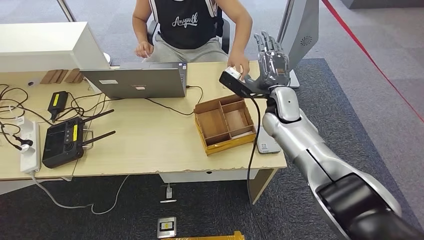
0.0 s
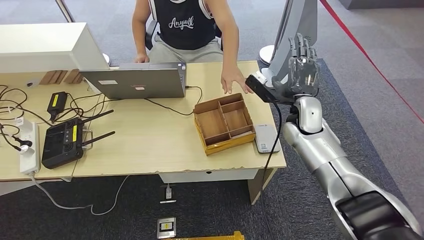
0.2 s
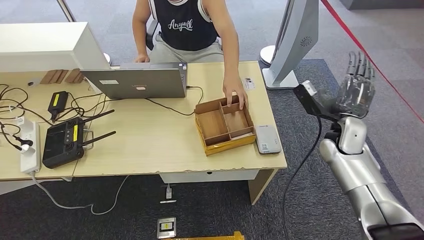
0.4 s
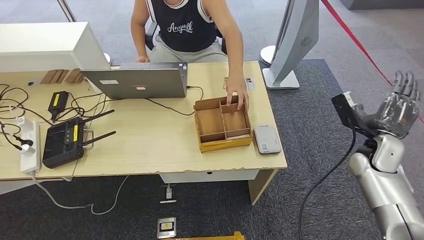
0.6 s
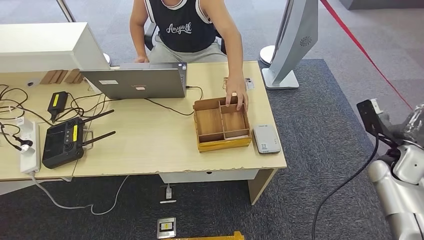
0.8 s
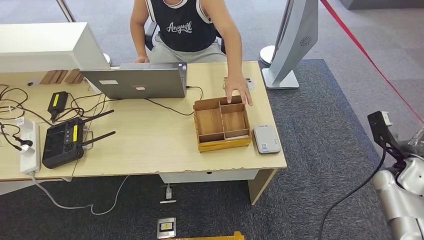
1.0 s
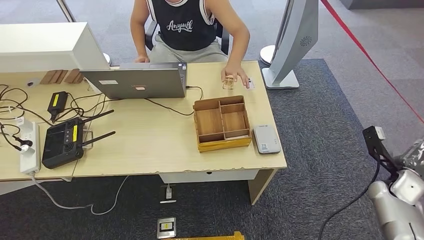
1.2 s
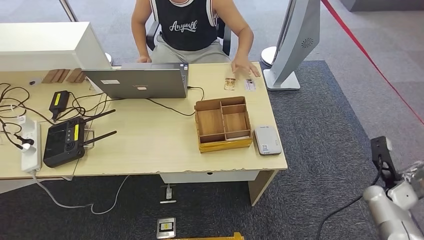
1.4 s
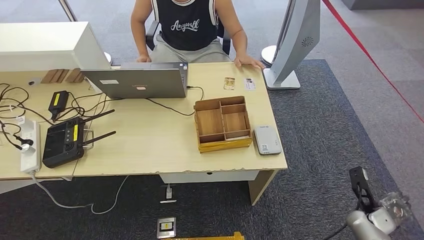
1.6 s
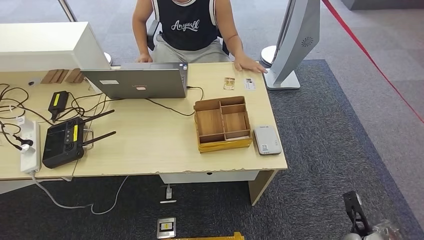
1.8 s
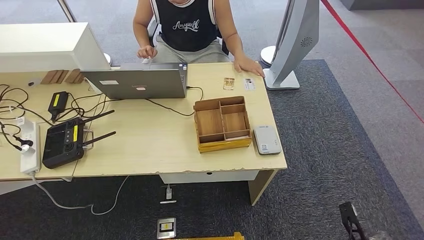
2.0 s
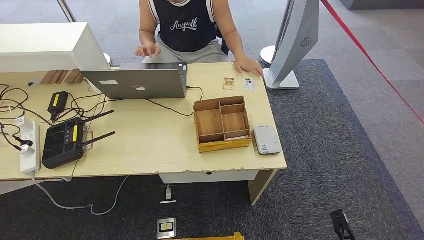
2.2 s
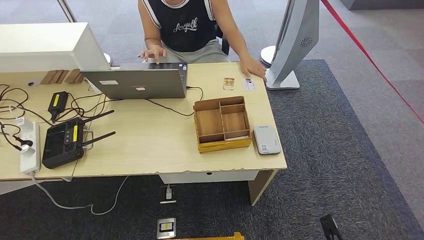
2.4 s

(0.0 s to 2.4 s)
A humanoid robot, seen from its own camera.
Step, 0.0 s - 2.4 s: Hand the room key to the person.
0.0 s - 1.2 s: The right hand travels to the right, backward and downward by about 40 cm.
1.2 s - 2.4 s: The right hand shifts about 30 cm downward, backward and to the left.

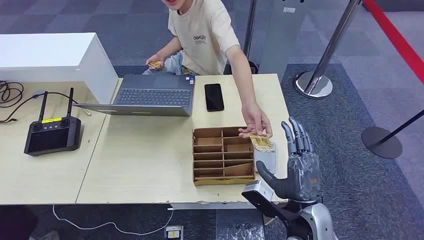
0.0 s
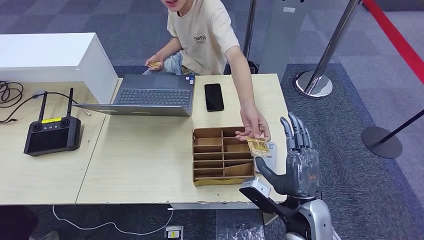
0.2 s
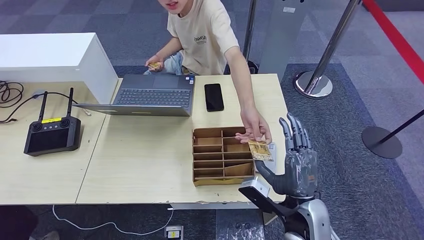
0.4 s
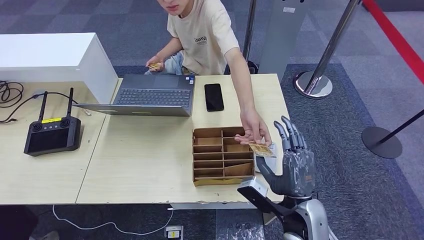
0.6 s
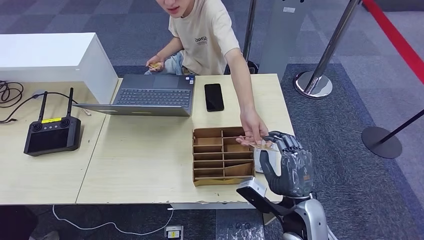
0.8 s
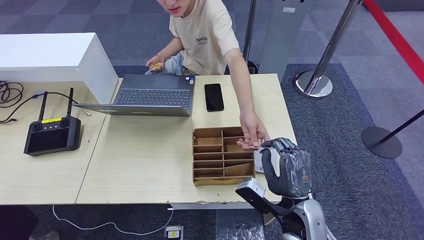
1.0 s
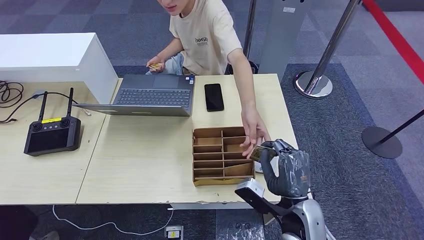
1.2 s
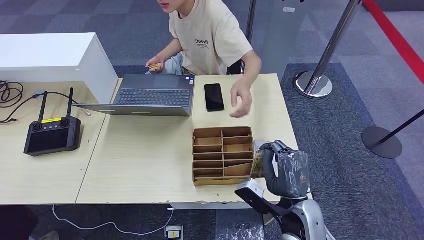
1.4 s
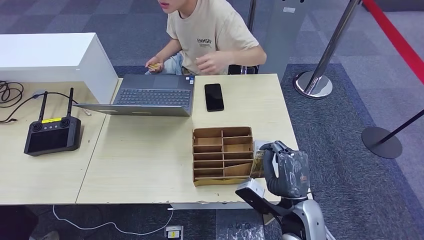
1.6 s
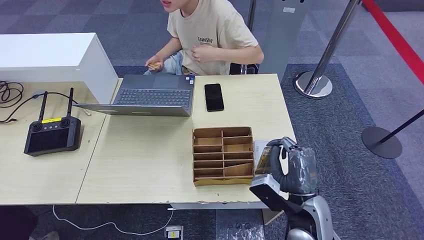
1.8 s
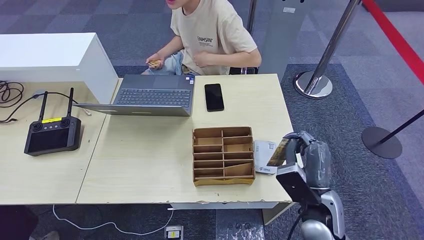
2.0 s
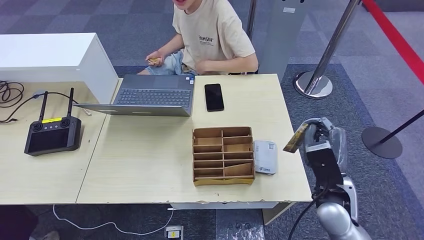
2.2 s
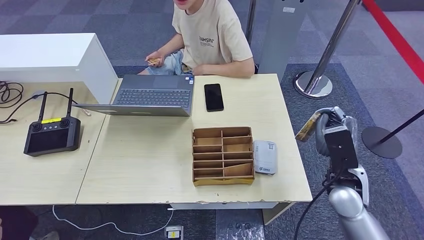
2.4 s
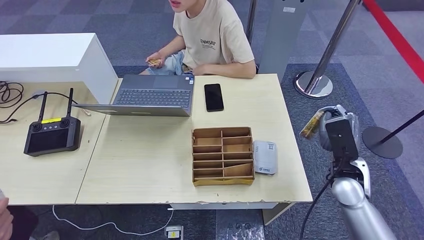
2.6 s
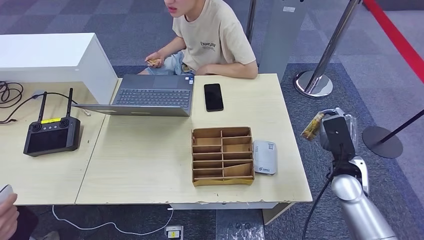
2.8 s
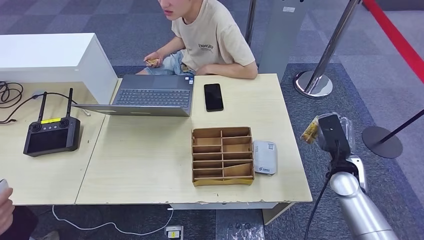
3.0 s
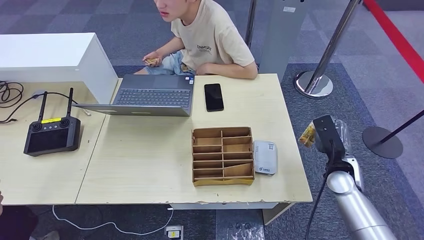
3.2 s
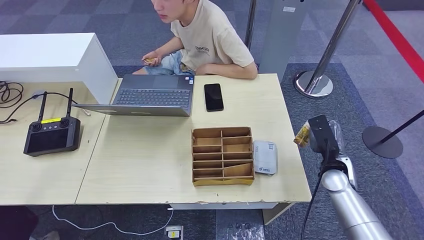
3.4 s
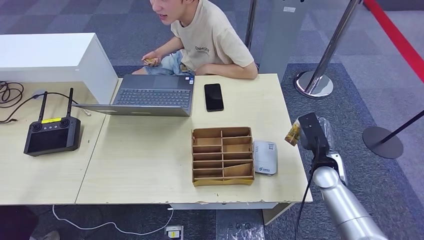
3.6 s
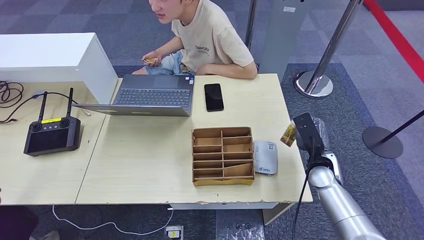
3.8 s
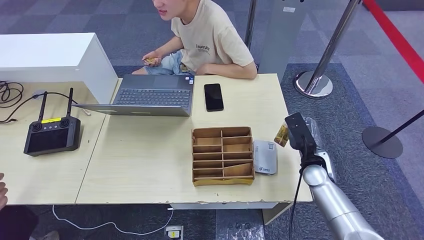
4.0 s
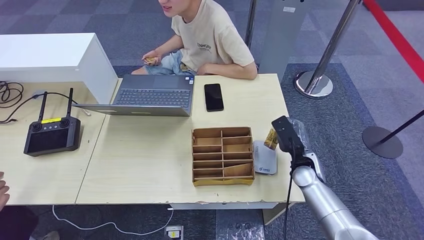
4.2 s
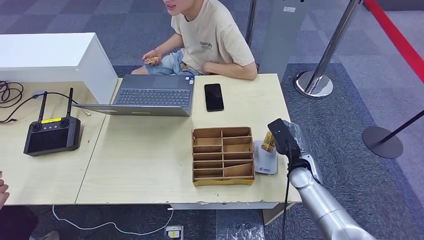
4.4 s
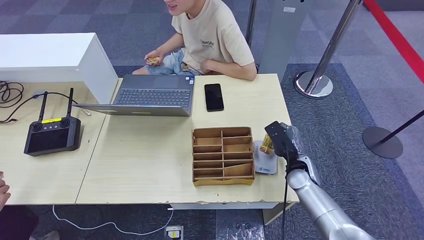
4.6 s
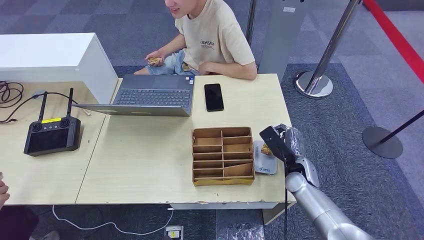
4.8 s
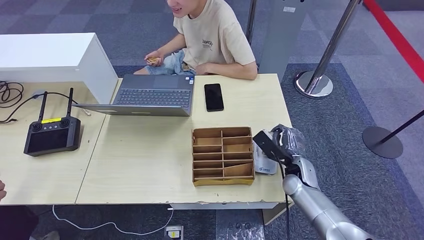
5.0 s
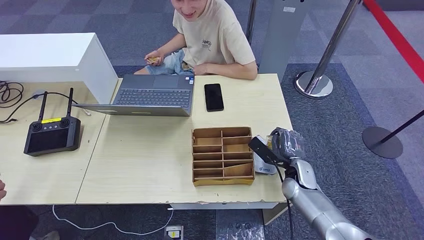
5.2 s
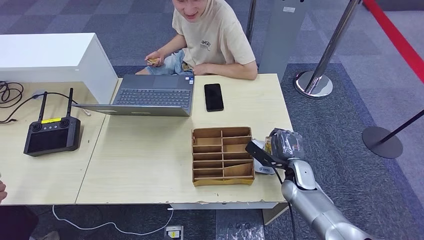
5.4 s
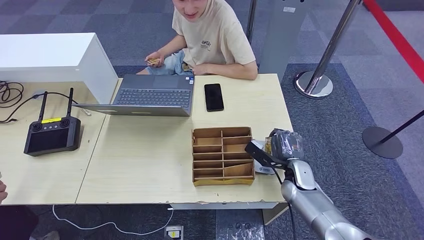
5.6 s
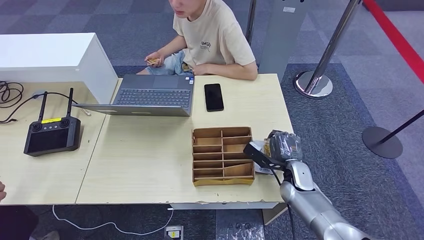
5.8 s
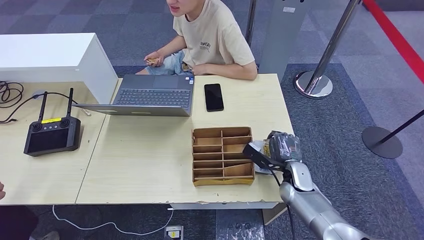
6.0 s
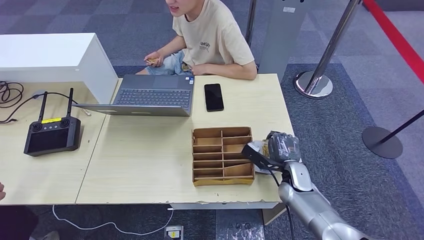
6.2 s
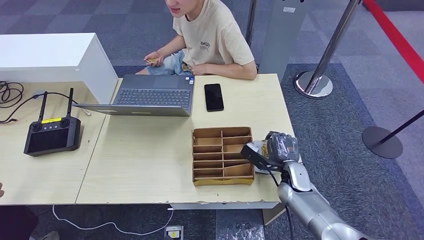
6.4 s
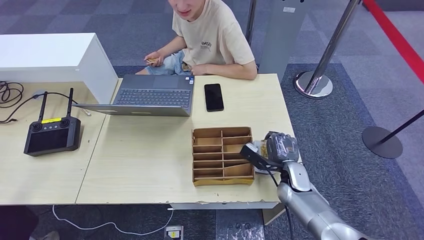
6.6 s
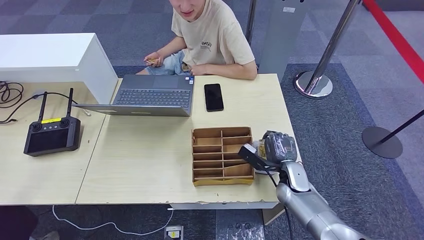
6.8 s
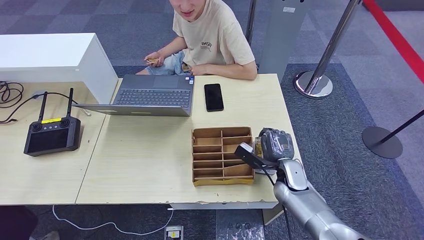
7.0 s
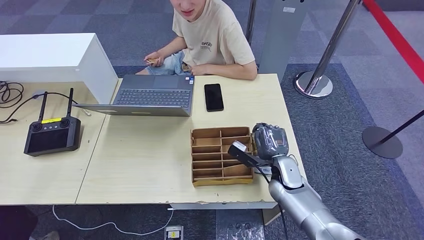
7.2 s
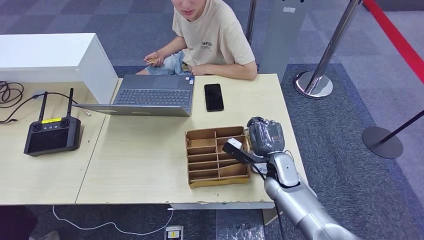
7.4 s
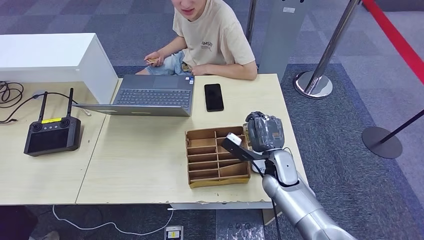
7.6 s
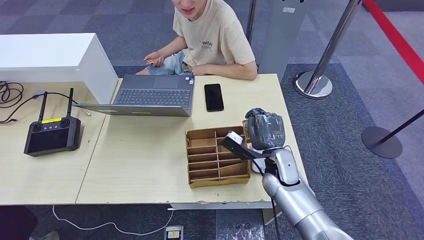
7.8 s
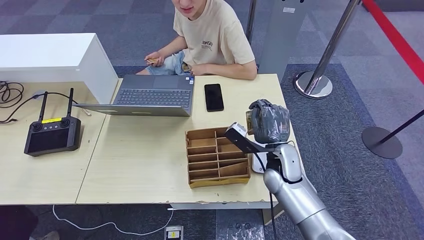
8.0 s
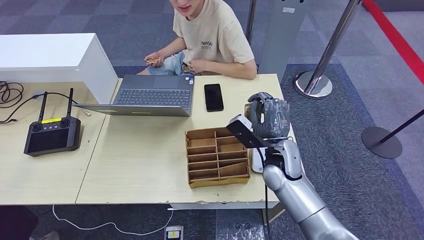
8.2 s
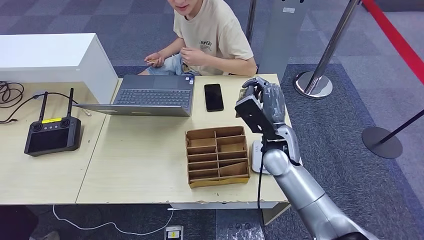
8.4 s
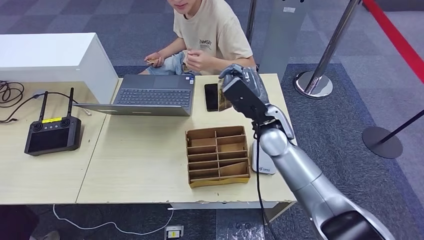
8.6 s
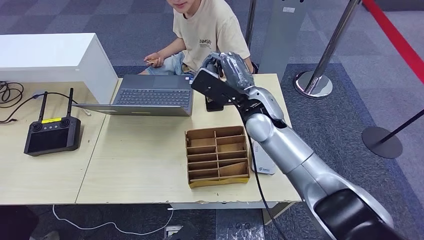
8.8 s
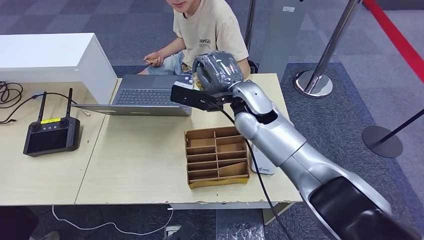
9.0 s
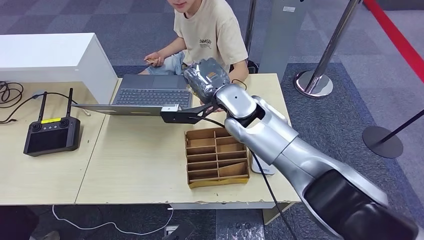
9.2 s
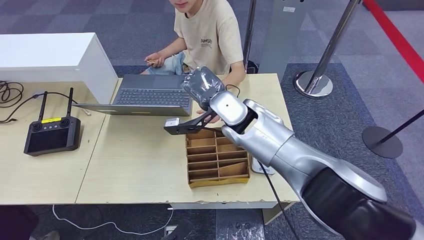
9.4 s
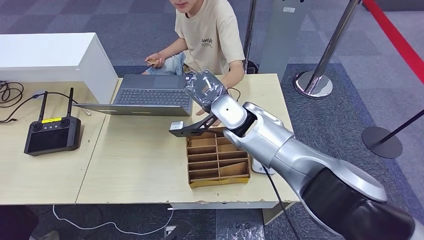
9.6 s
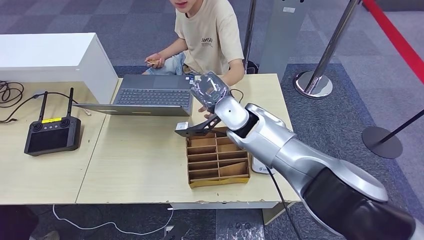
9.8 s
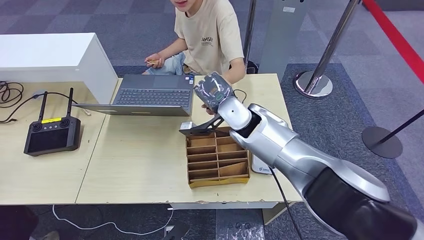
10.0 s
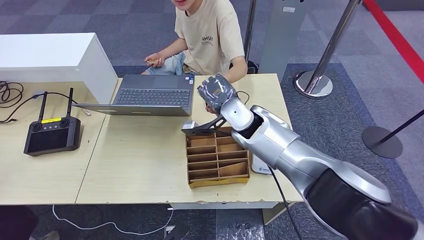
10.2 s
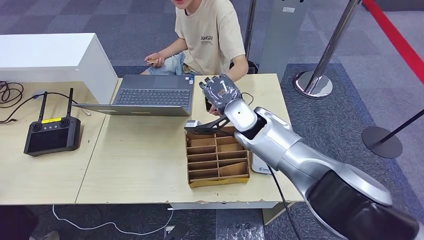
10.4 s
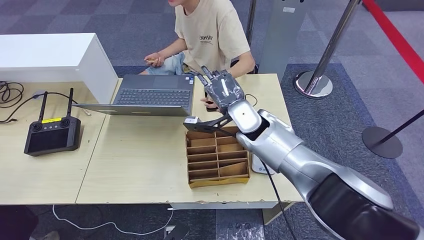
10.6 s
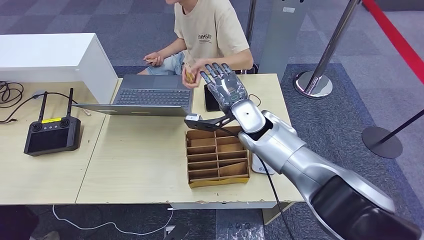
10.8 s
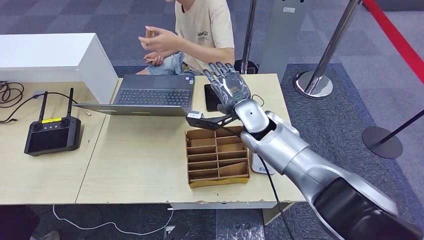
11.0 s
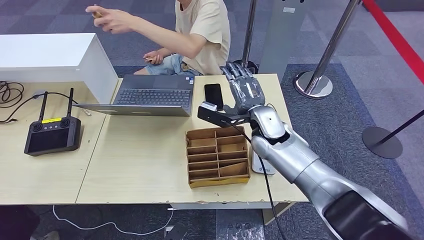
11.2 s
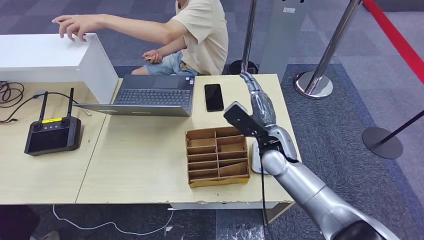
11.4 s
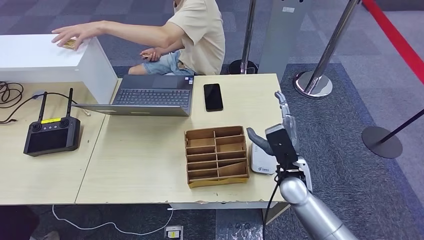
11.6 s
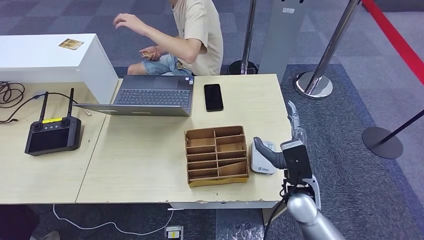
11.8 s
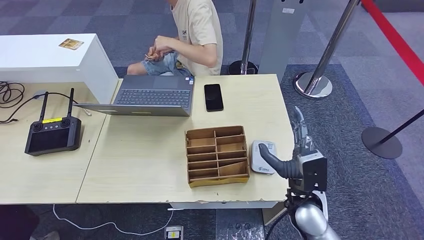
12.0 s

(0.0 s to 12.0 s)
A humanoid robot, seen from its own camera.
Step, 0.0 s - 2.2 s: Take the ID card from the person's hand.
Step, 2.4 s - 5.8 s: Place the ID card on the card reader.
Step, 6.0 s - 11.2 s: Hand the ID card to the person.
1.6 s - 3.0 s: The right hand is displaced to the right and forward by approximately 20 cm.
3.0 s - 4.4 s: The right hand heads to the left, covering roughly 10 cm.
6.0 s - 7.6 s: The right hand heads to the left and upward, covering some 10 cm.
7.6 s - 9.0 s: The left hand moves to the right, about 5 cm; the right hand shifts roughly 20 cm upward and to the left.
9.0 s - 10.4 s: The right hand shifts approximately 5 cm downward.
10.4 s - 12.0 s: The right hand heads backward, to the right and downward, covering roughly 25 cm. Meanwhile the left hand goes some 5 cm backward and to the left.

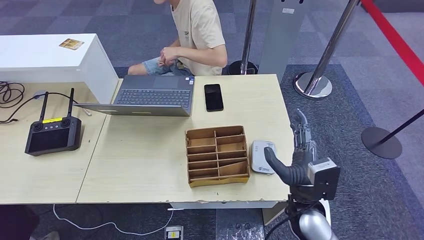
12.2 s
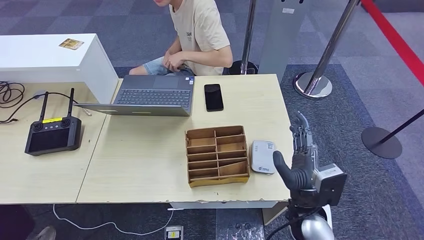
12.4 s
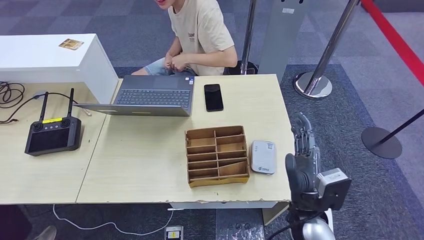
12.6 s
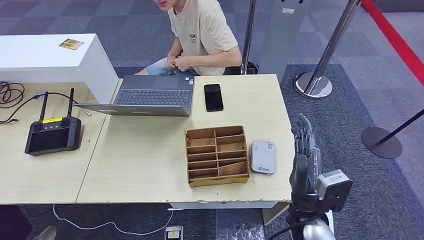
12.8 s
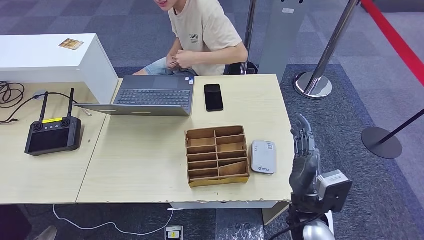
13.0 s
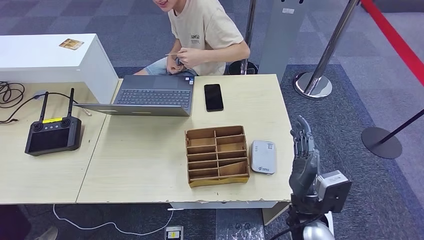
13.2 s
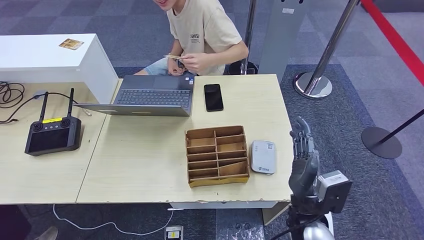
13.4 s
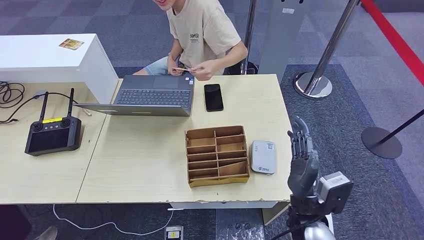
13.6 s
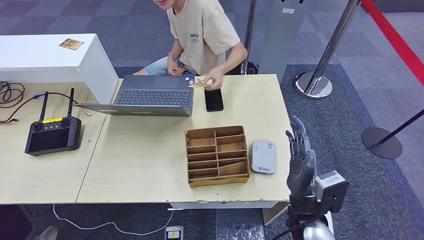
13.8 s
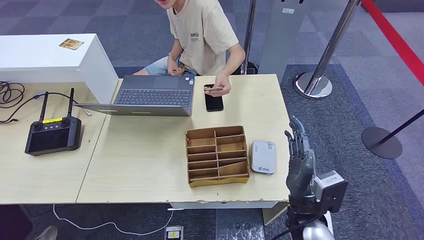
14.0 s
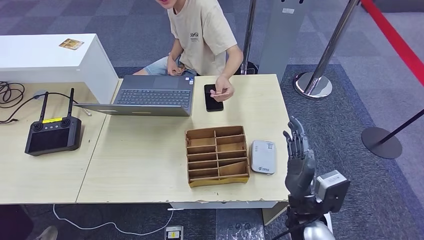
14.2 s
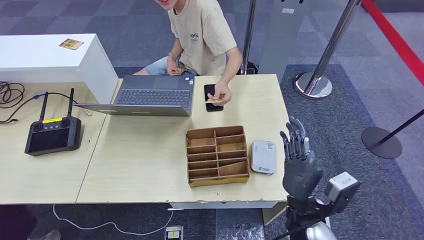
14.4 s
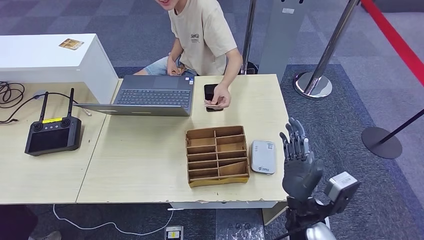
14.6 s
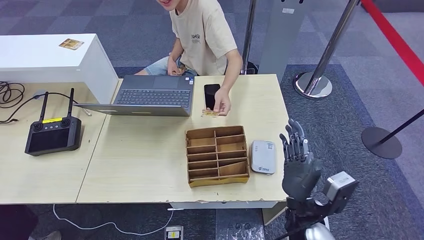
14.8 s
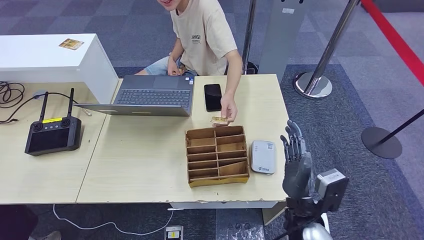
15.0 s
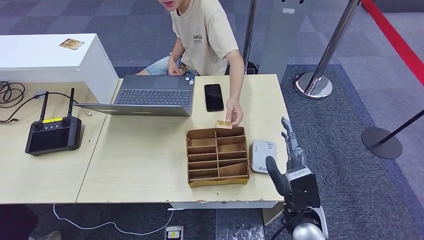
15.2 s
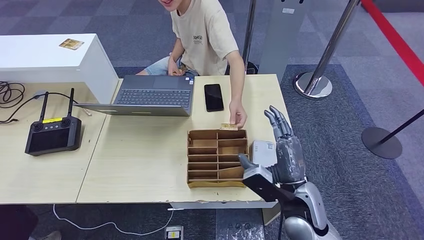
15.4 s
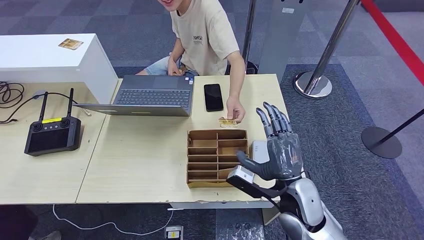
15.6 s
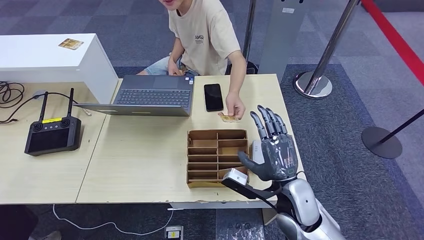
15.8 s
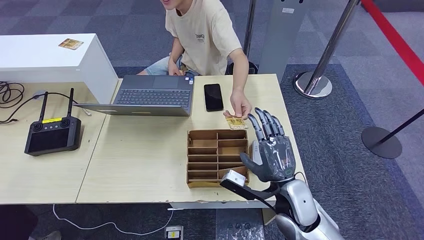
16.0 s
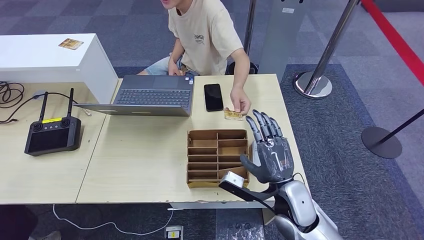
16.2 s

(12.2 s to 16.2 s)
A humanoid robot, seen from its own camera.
12.2 s - 14.8 s: The hands move only a little.
